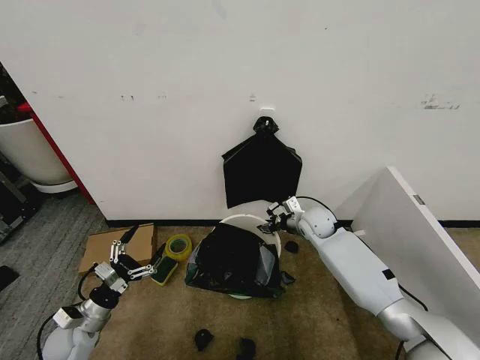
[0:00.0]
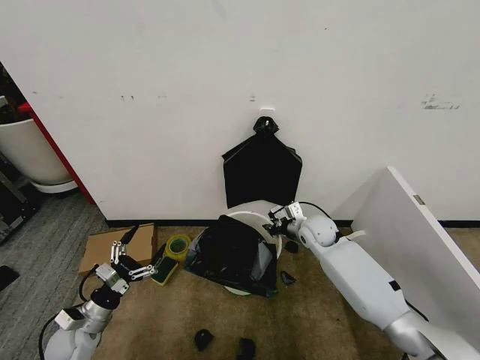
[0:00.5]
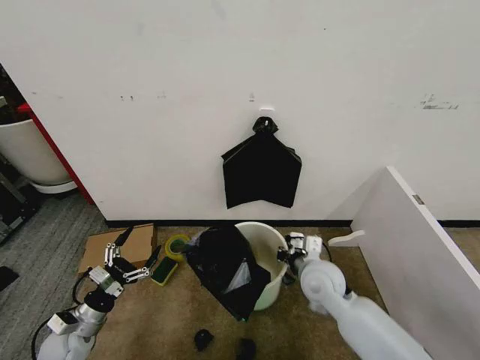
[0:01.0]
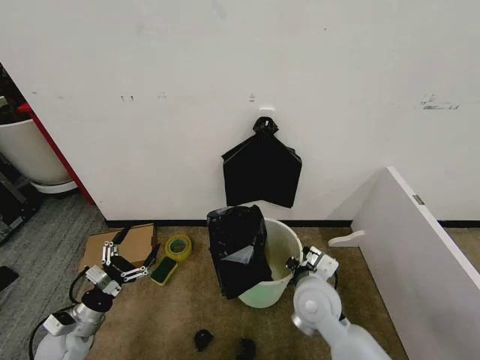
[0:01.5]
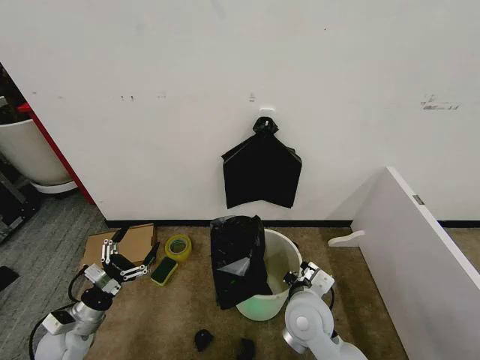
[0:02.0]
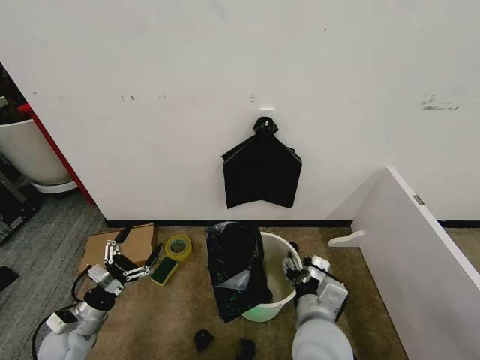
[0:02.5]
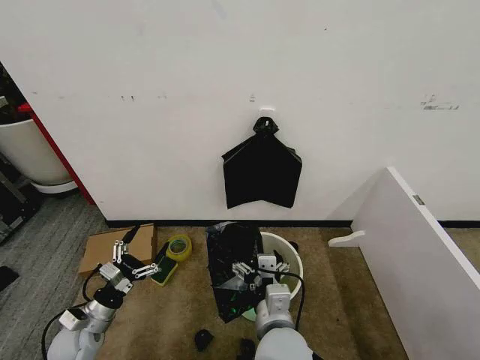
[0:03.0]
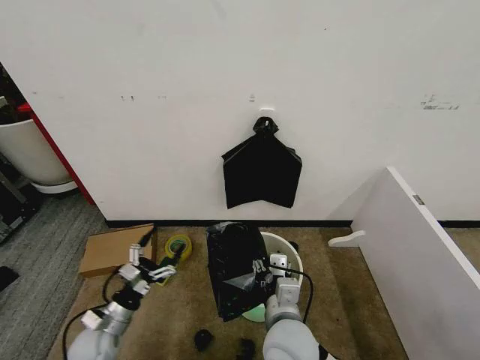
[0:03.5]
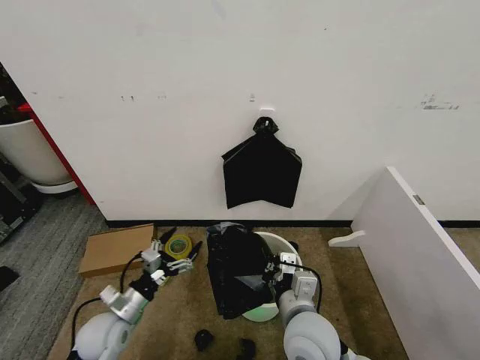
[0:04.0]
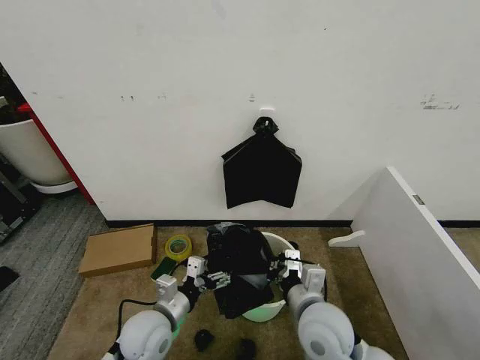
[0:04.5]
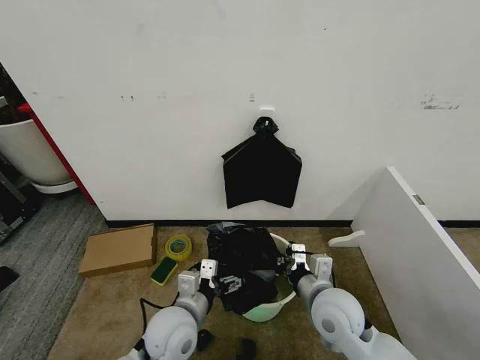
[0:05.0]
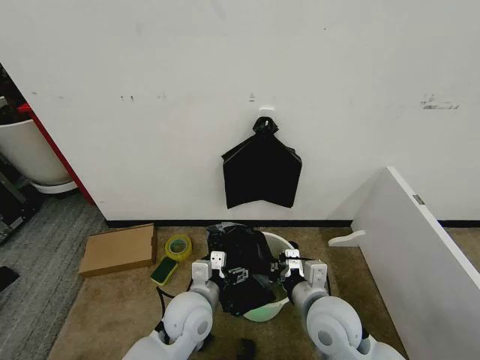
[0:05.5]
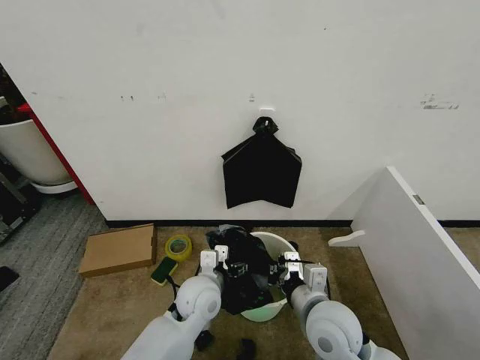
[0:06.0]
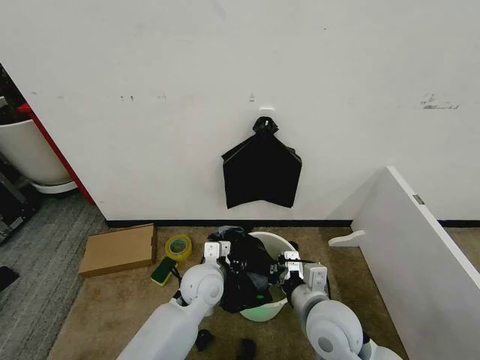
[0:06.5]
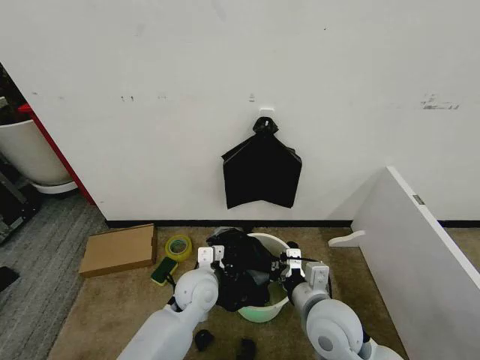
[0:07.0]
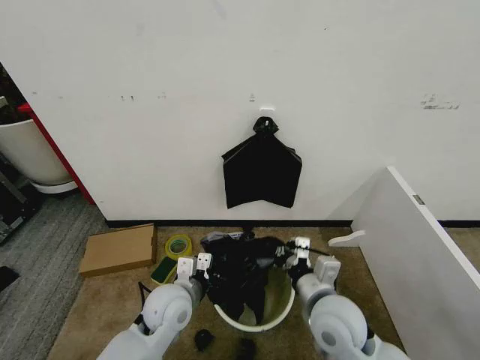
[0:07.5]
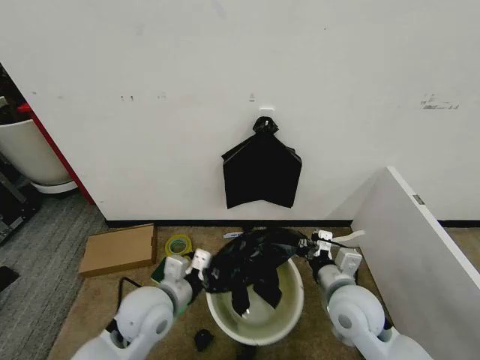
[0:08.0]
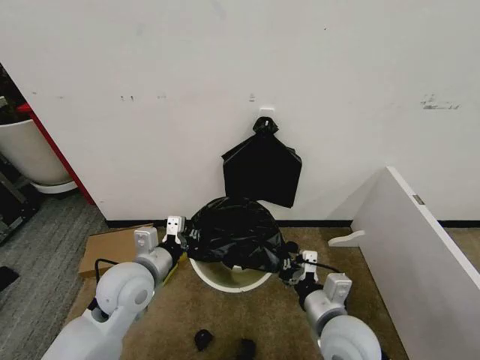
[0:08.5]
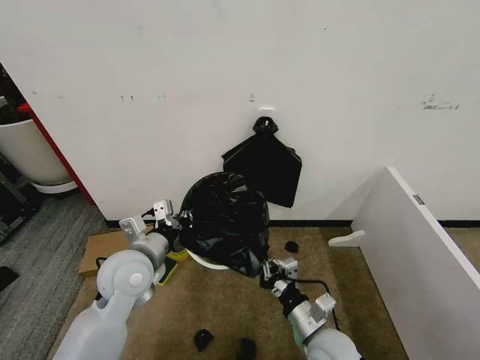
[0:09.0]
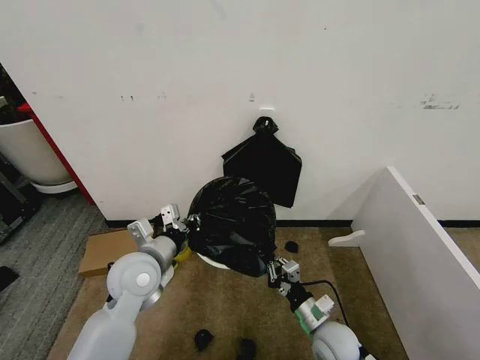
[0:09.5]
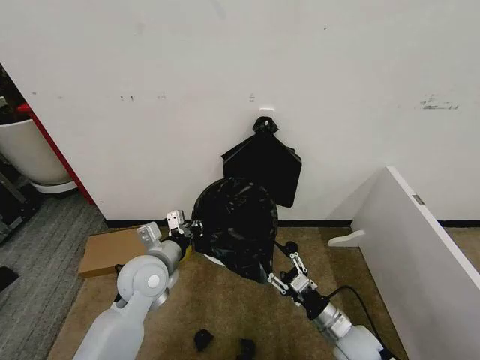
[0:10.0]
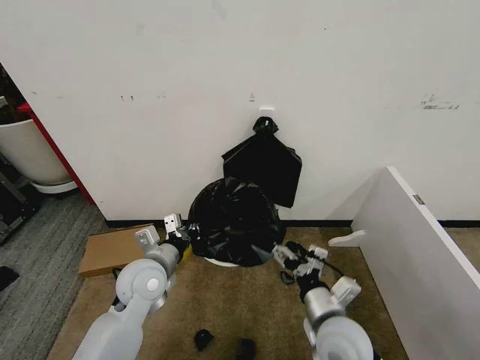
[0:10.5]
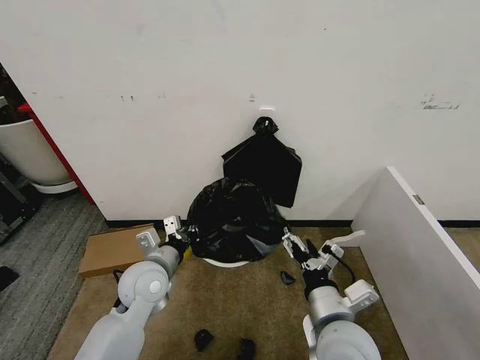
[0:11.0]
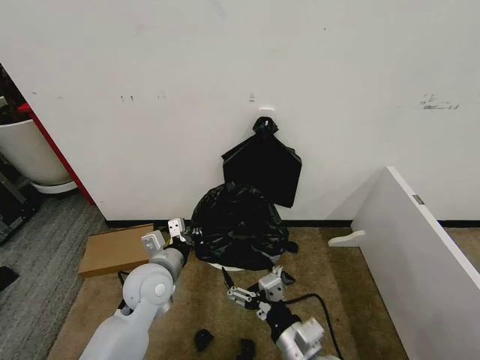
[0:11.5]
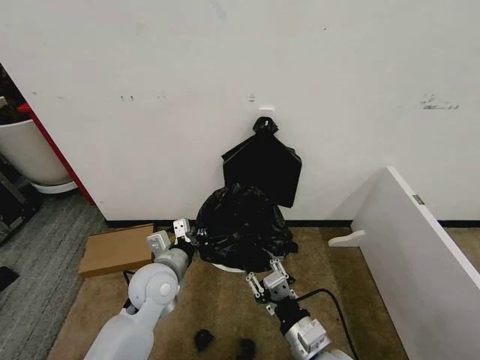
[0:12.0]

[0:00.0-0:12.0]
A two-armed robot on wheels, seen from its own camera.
Task of the whole recording: Place the garbage bag over the trash bin.
0:00.0 to 0:02.0: The right gripper heads backward, covering approximately 25 cm, and closes its fingers.
0:02.0 to 0:04.0: The right gripper opens, then closes again. Meanwhile the left gripper travels to the right by some 10 cm.
0:04.0 to 0:06.0: The left gripper travels to the right by roughly 20 cm.
0:06.0 to 0:08.0: The right gripper heads to the right, covering approximately 5 cm; the left gripper moves to the left and upward, about 10 cm, and closes its fingers.
0:08.0 to 0:10.0: The left gripper travels forward by approximately 5 cm; the right gripper is displaced downward by roughly 15 cm, and opens up.
0:10.0 to 0:12.0: The right gripper moves upward, to the left and backward, roughly 15 cm, and opens, then closes again.

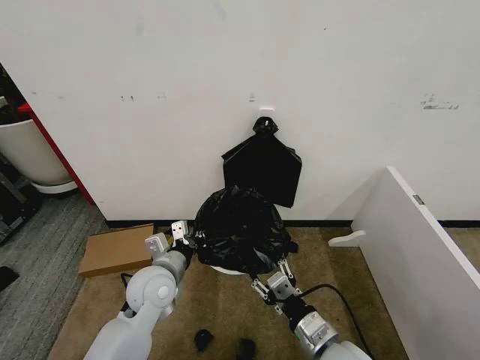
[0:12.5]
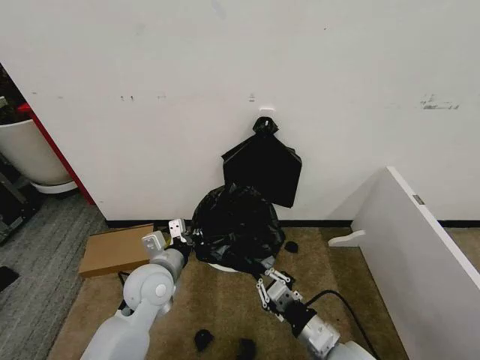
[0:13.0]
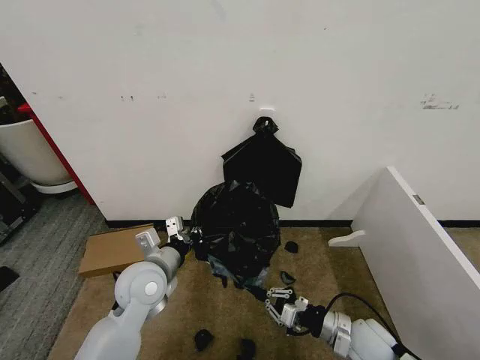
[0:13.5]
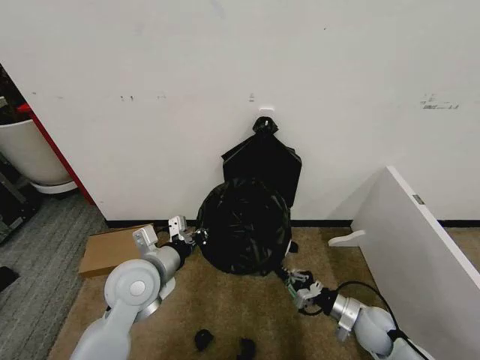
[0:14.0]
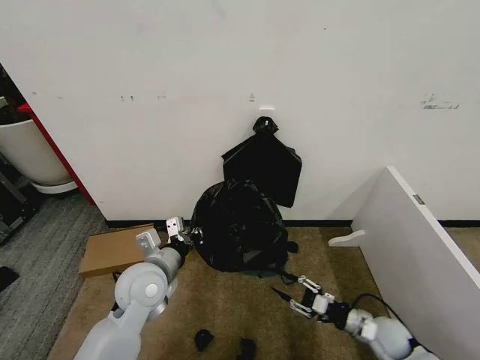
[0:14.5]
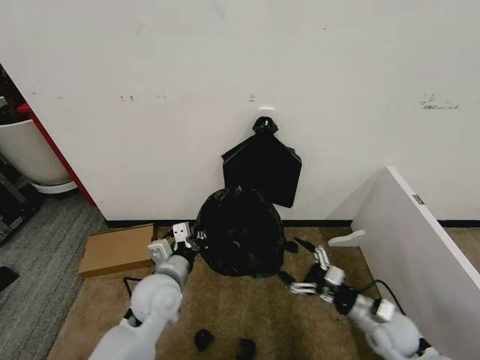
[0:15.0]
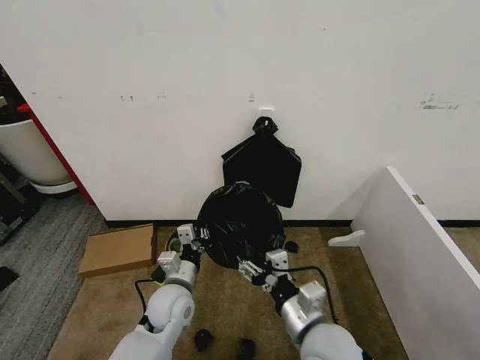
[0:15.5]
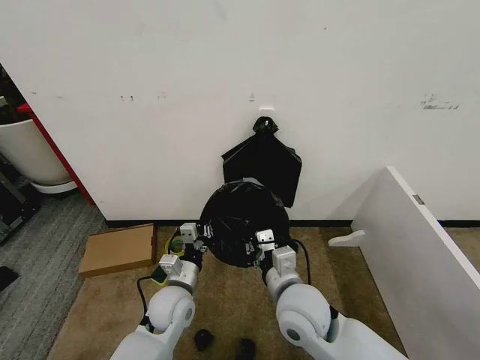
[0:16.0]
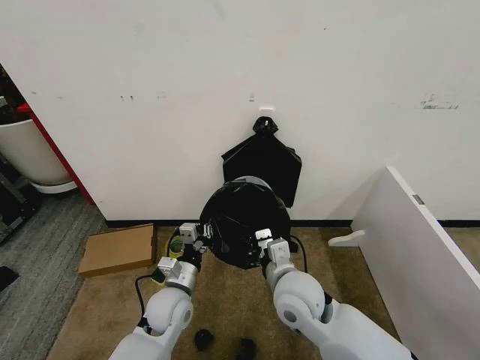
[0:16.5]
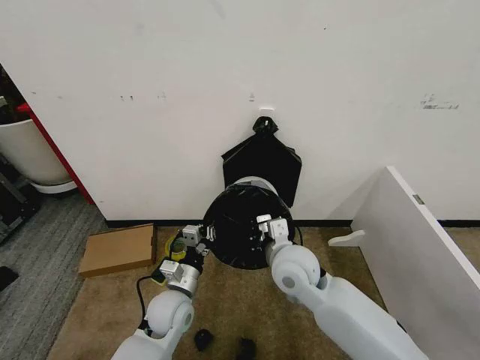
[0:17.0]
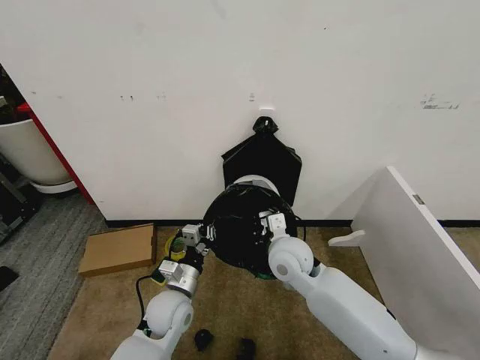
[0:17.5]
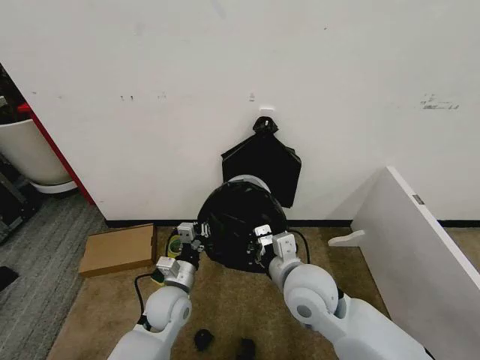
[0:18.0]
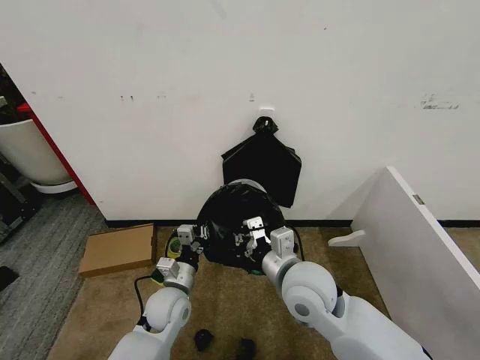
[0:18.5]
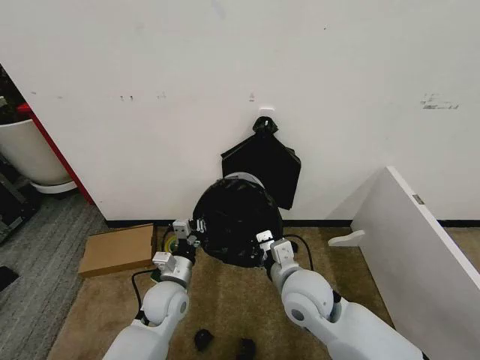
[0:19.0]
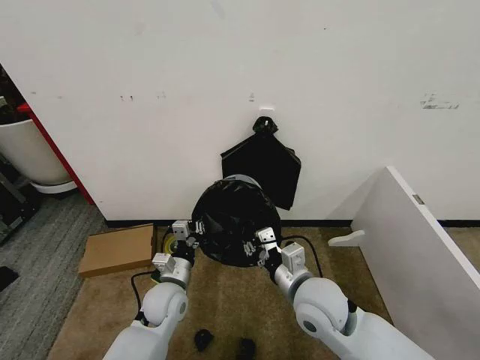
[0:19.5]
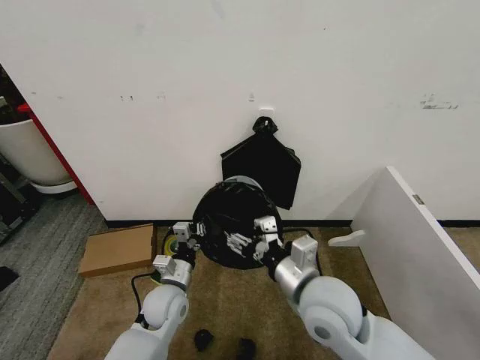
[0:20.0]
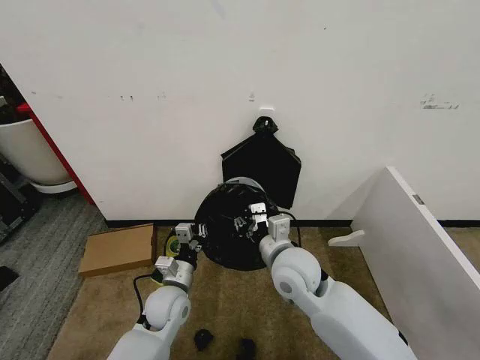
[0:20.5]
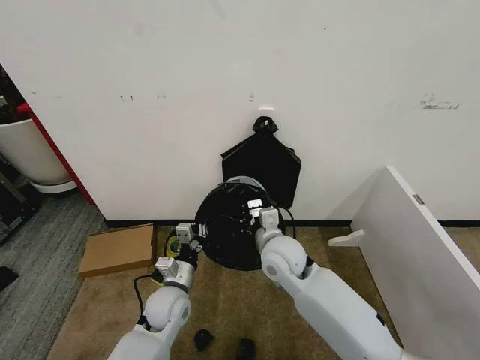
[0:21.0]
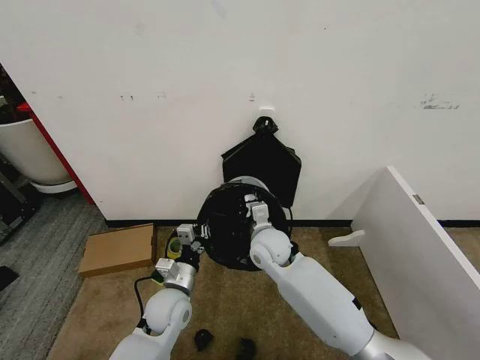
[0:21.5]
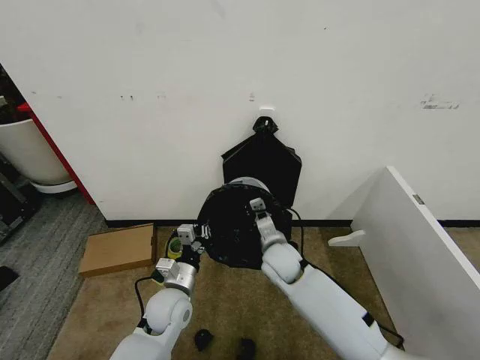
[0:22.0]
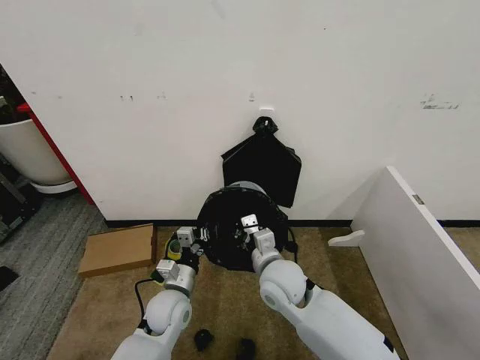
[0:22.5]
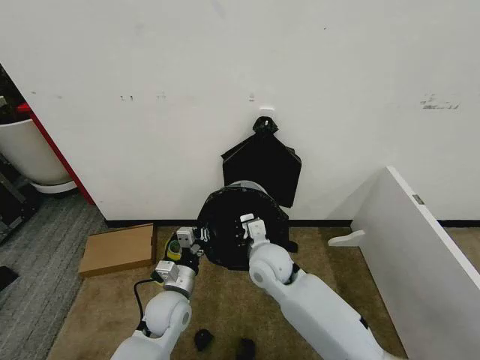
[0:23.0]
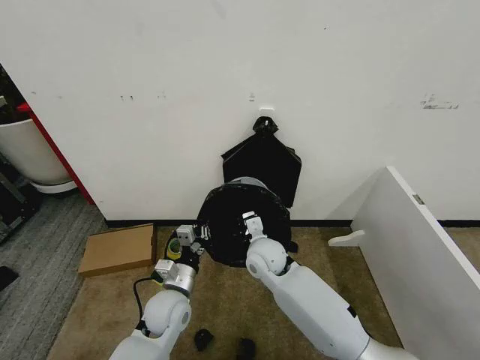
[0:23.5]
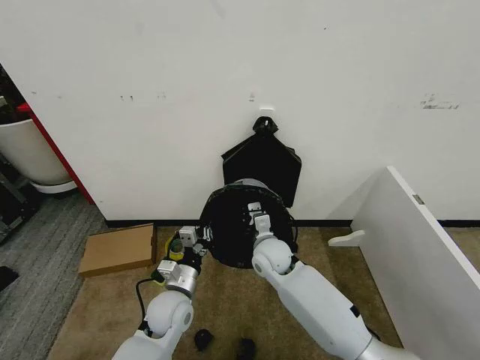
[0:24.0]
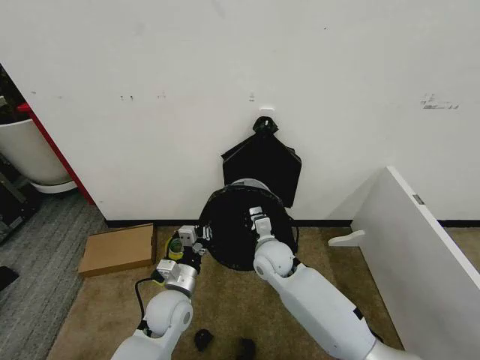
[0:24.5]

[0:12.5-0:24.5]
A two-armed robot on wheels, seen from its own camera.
Task of the whole recording: Place the garbage bag over the trash bin.
0:12.5 to 0:14.5: The right gripper is displaced to the right, downward and forward by about 25 cm, and closes and opens again.
0:14.5 to 0:16.5: The right gripper is displaced to the left and upward by some 35 cm, and closes its fingers, while the left gripper shifts about 10 cm downward.
0:16.5 to 0:18.5: The right gripper travels forward and back again, some 10 cm each way.
0:18.5 to 0:20.5: The right gripper opens up.
0:20.5 to 0:22.5: The right gripper shifts roughly 5 cm downward, and closes.
0:22.5 to 0:24.5: The right gripper travels forward by some 10 cm.

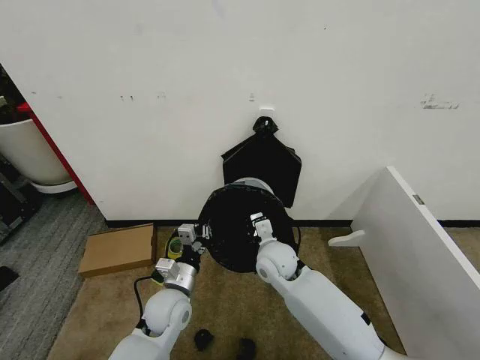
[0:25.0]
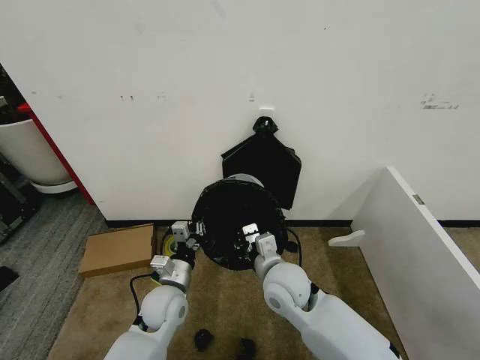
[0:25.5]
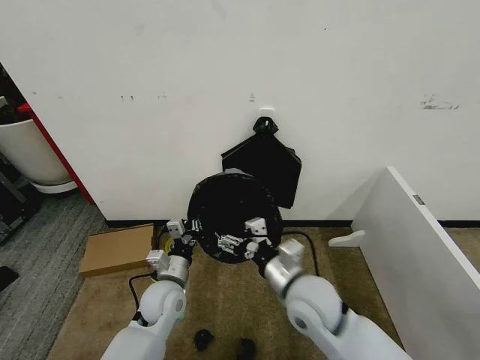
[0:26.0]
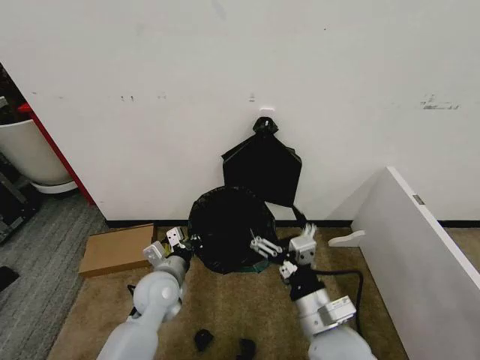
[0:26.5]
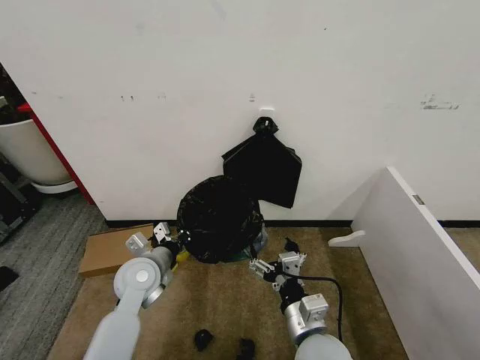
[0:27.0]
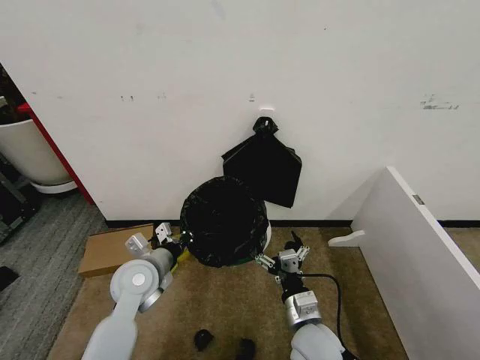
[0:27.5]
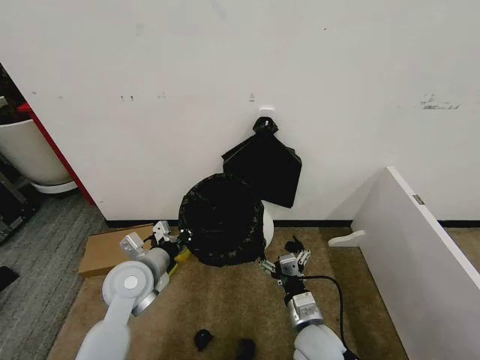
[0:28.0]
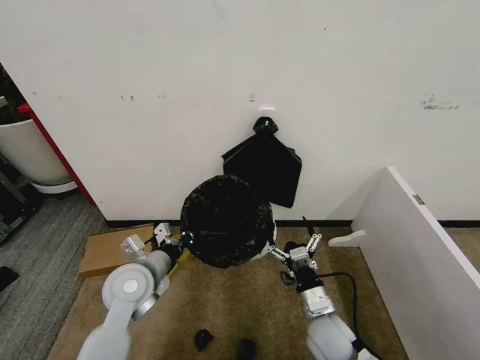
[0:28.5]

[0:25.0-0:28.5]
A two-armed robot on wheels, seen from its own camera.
Task of the whole recording: Place the garbage bag over the trash bin.
0:25.0 to 0:27.0: The left gripper is displaced upward and to the left by roughly 10 cm. Meanwhile the right gripper heads backward, covering approximately 20 cm, and opens.
0:27.0 to 0:28.5: The right gripper is displaced downward and forward by roughly 10 cm.
